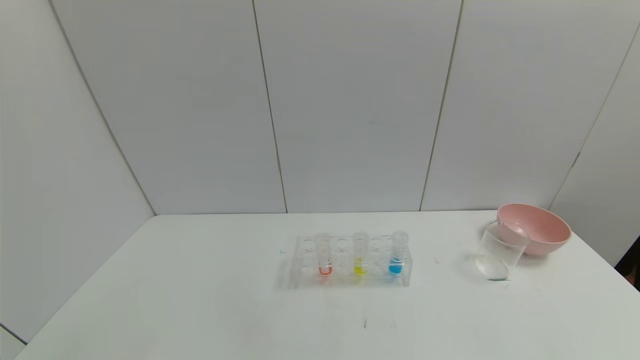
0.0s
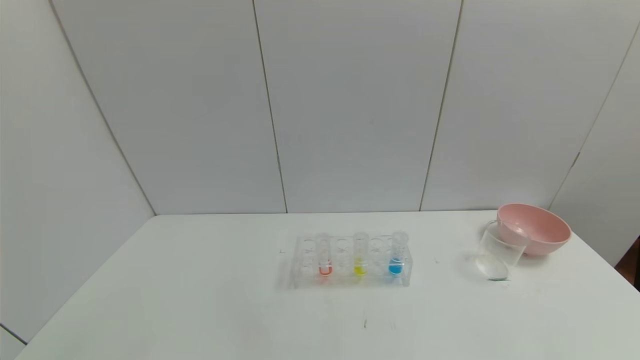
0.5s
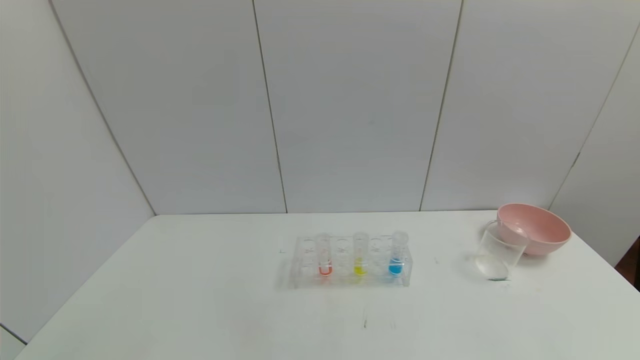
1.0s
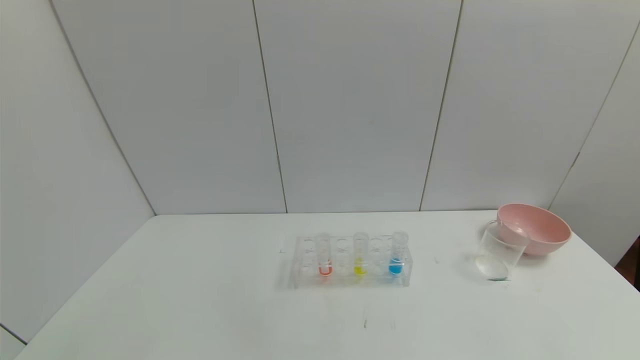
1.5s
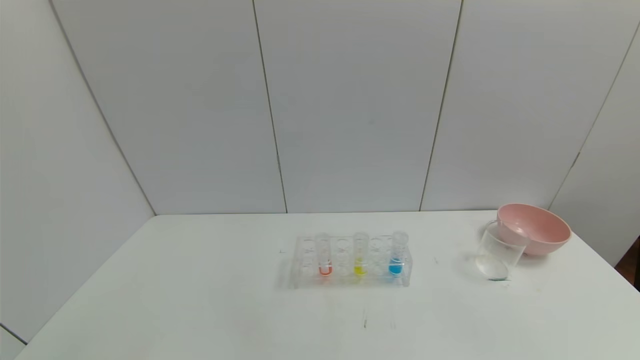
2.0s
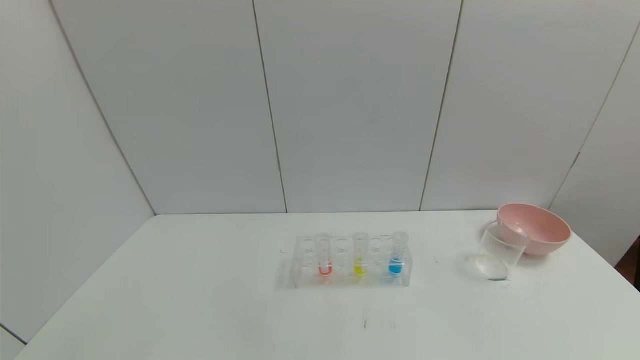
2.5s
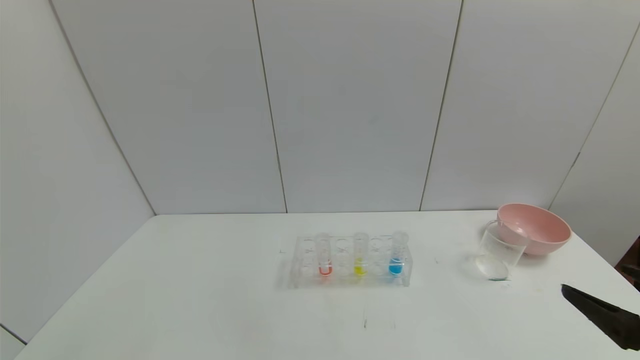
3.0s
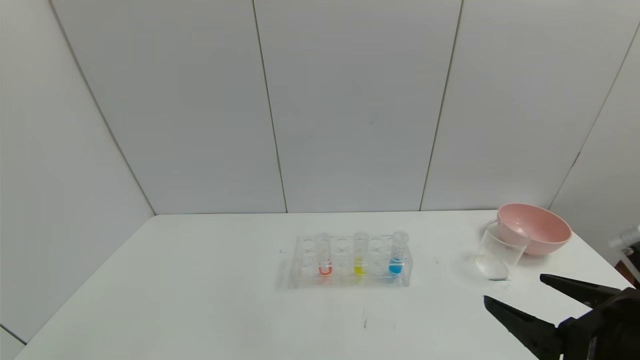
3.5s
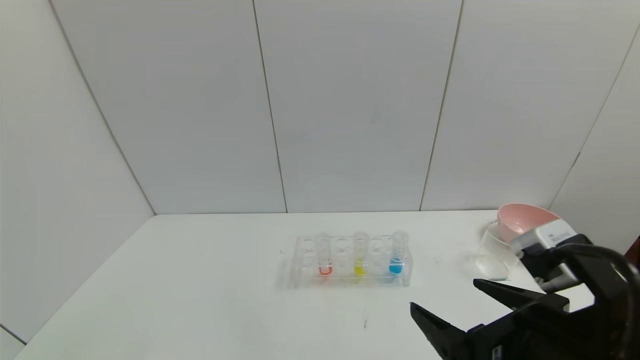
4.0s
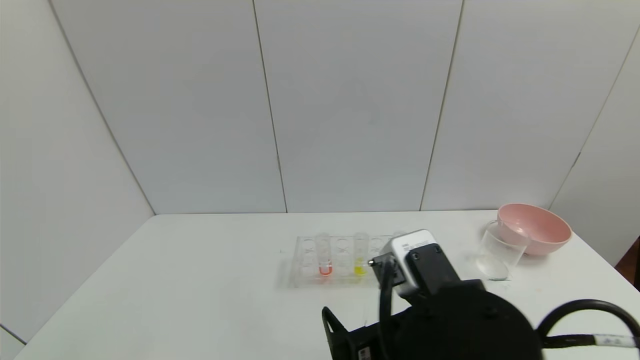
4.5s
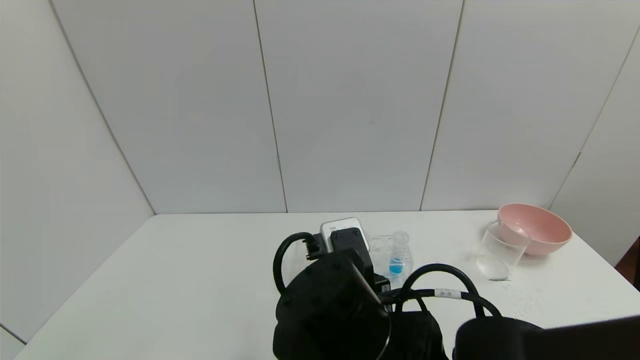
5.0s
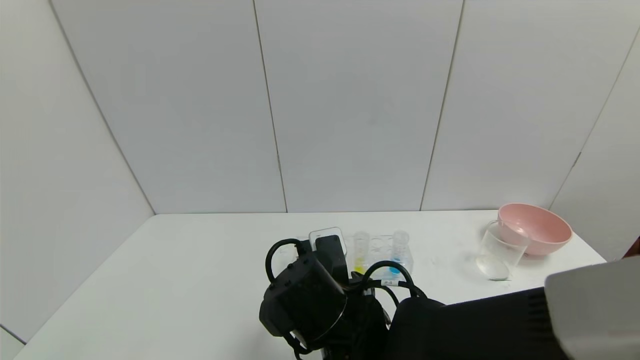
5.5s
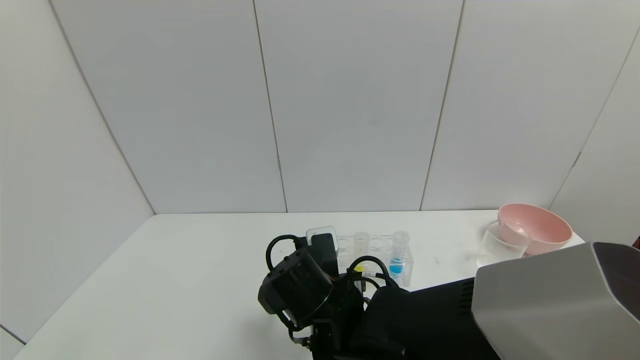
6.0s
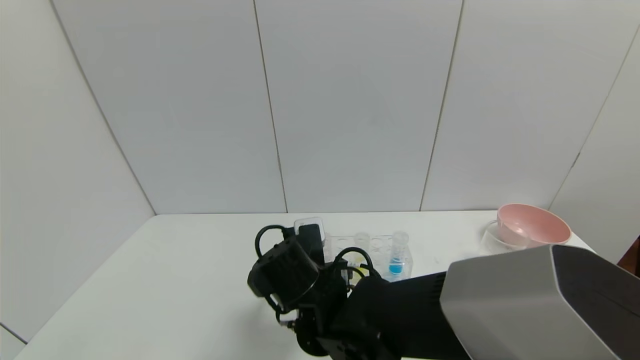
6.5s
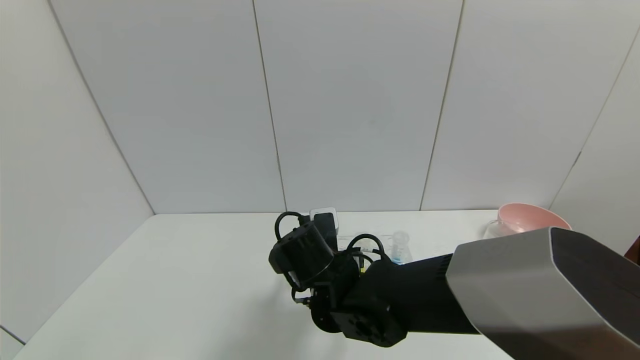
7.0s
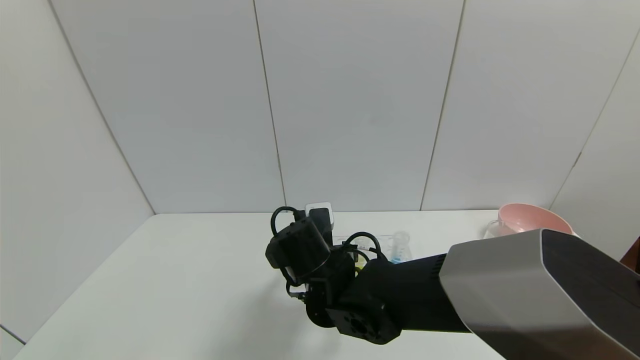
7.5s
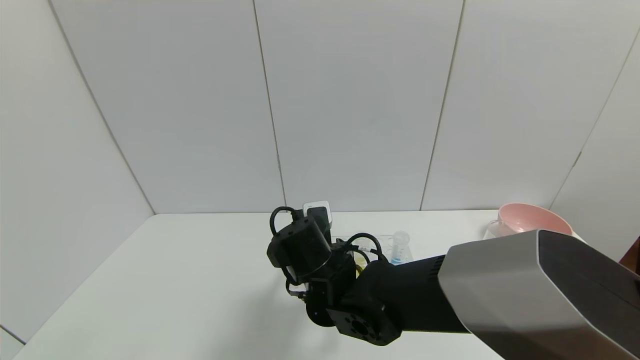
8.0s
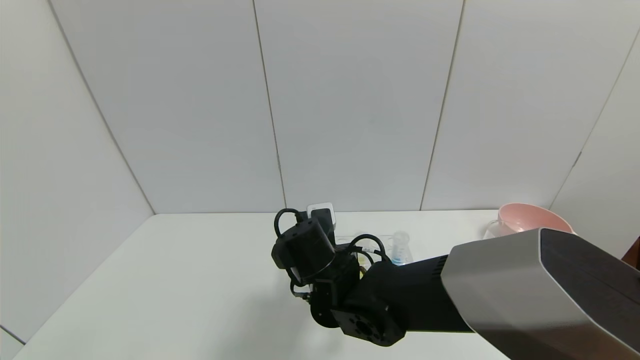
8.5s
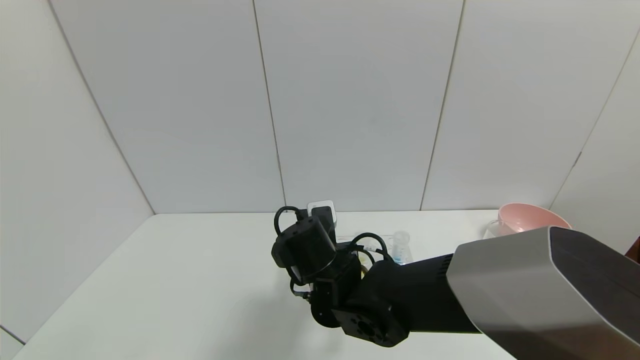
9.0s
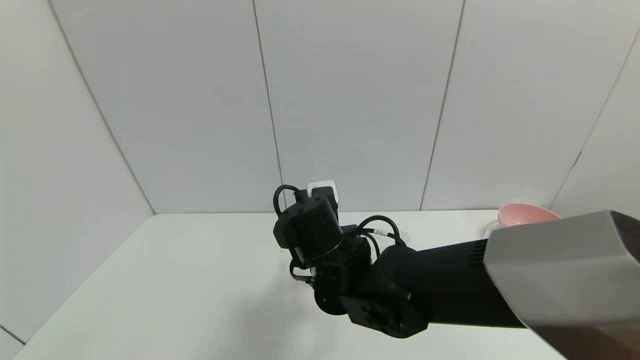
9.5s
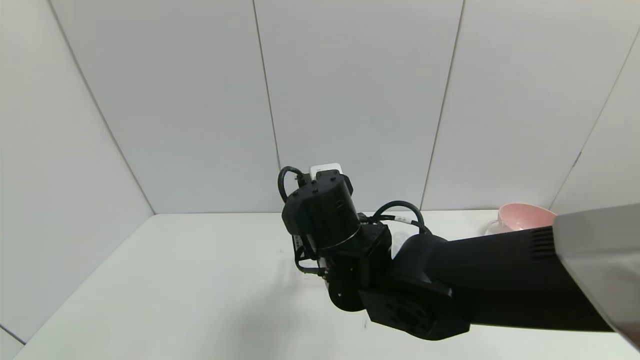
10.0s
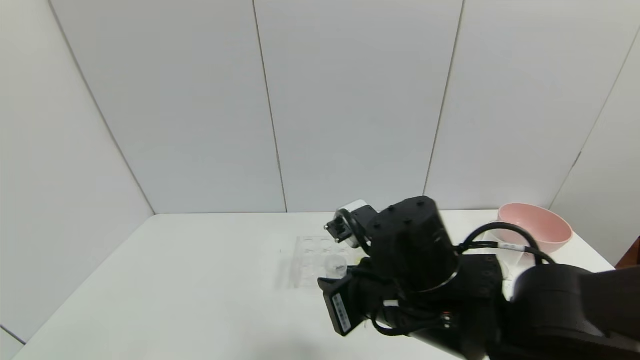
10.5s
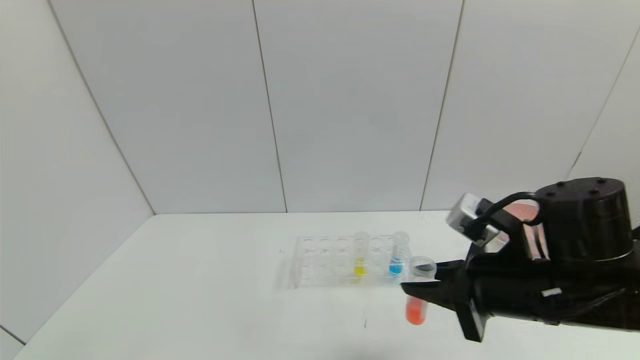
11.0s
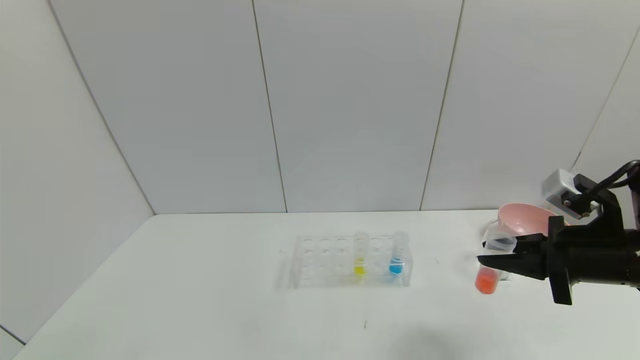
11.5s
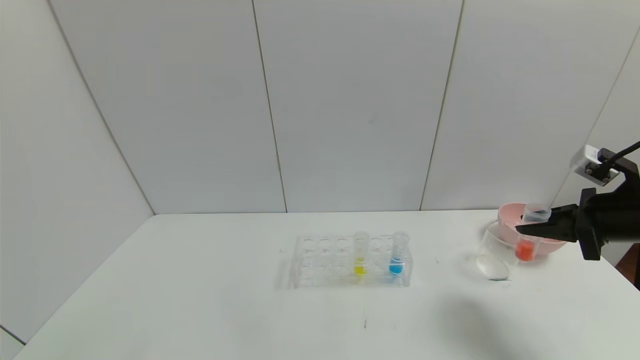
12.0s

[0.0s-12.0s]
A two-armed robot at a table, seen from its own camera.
Task of the whole recording: pick up the test tube with yellow pigment and the test tube with red pigment by grippers and pour them into the beaker.
Step, 0.0s to 8.5s: Grasp the red reagent with the right gripper.
2.0s to 4.0s: The right gripper travels to the left and forward by approximately 25 cm.
4.0s to 6.0s: The right gripper heads to the left, forward and downward, covering roughly 25 cm.
6.0s to 8.0s: There are only small adjustments of the grippers.
8.0s to 10.0s: The right gripper travels upward by some 5 cm, and closes.
10.0s to 12.0s: The right gripper moves to the right, some 40 cm.

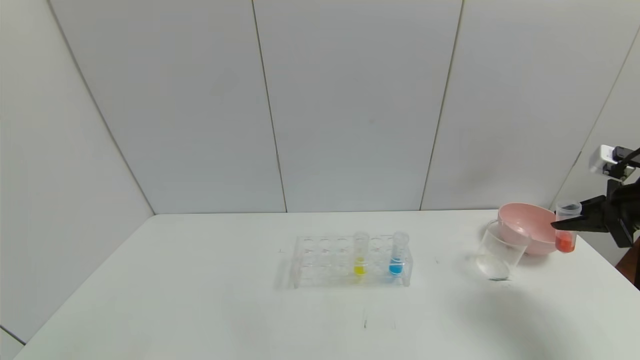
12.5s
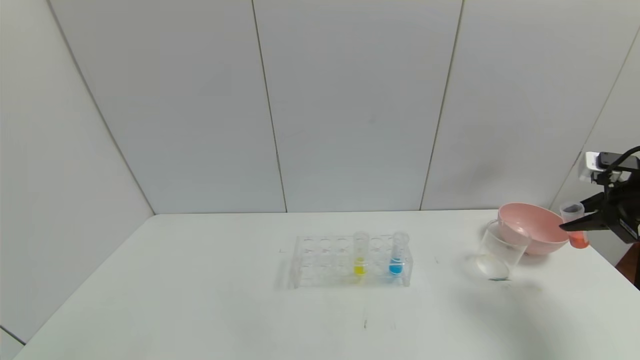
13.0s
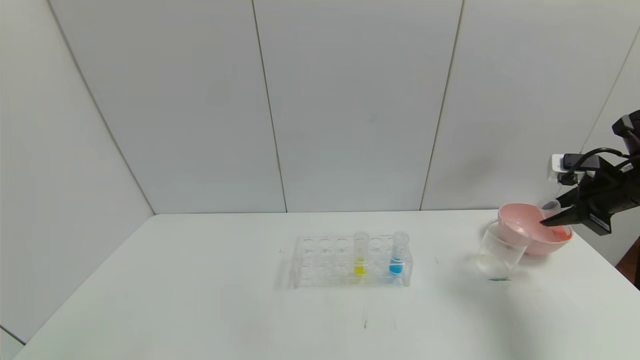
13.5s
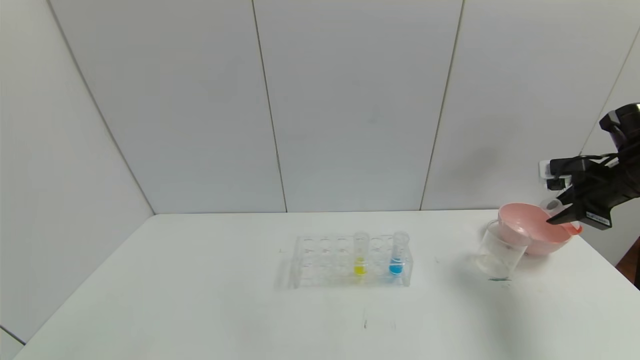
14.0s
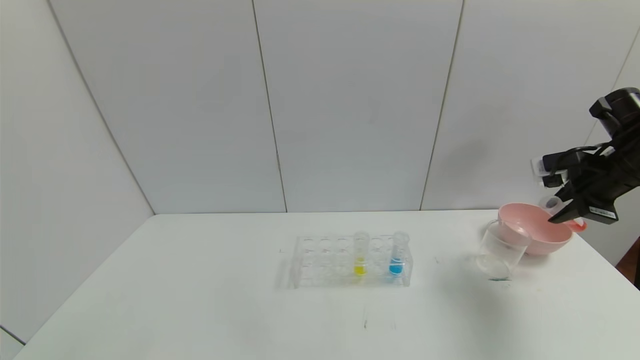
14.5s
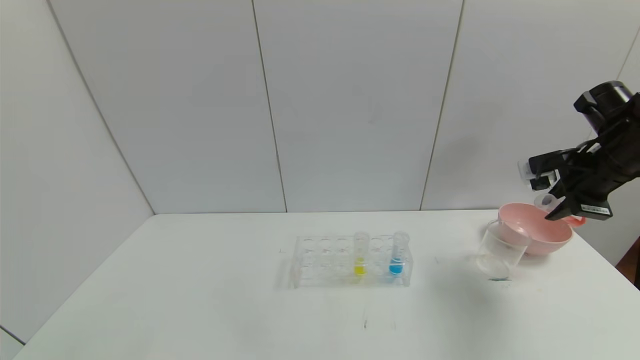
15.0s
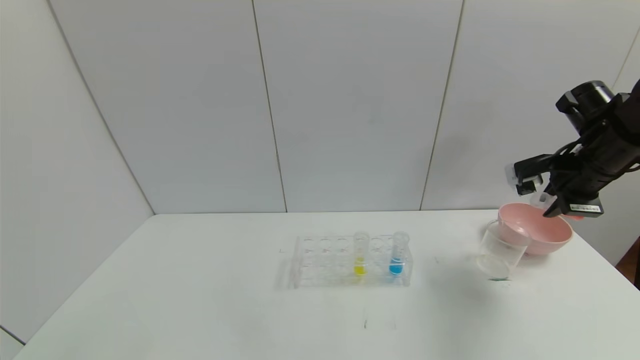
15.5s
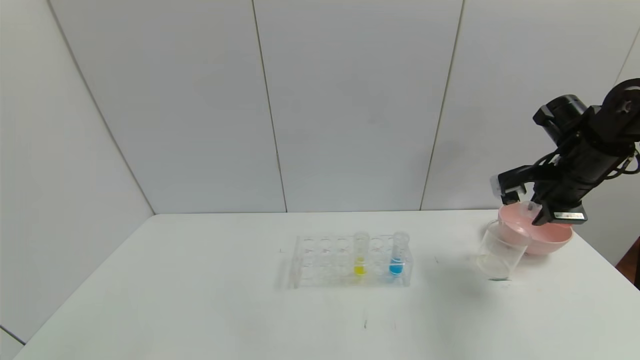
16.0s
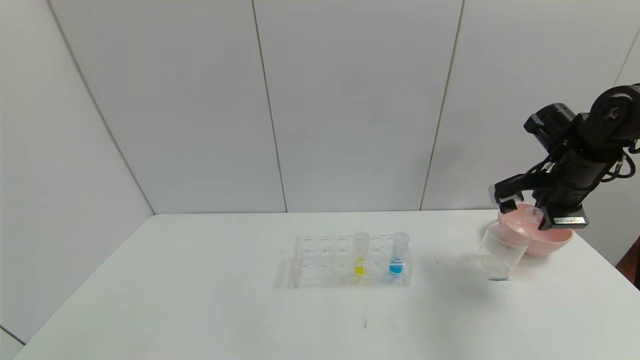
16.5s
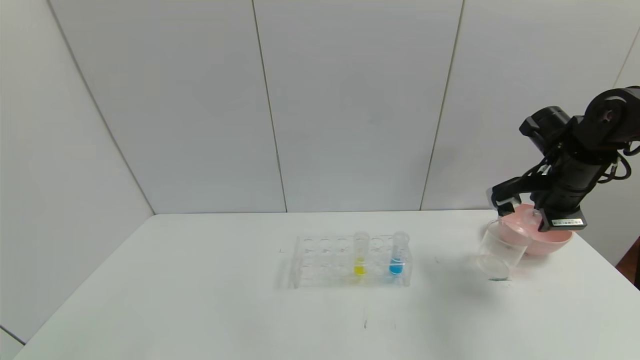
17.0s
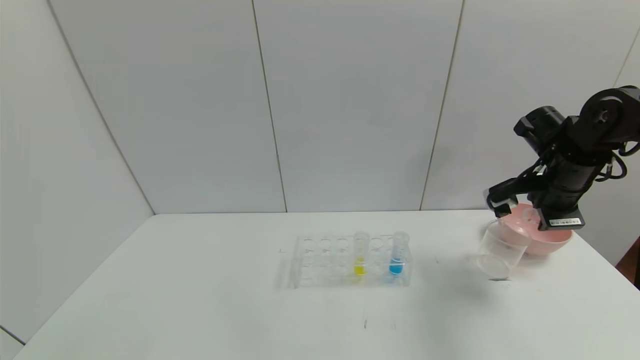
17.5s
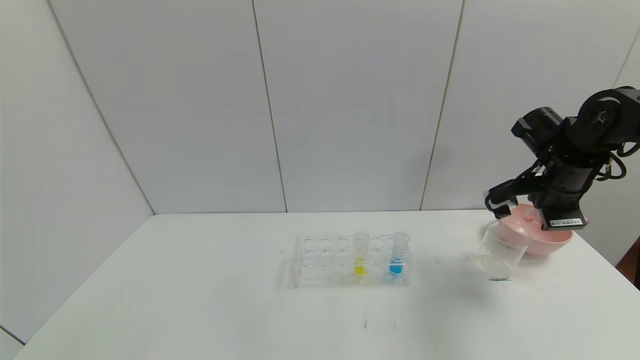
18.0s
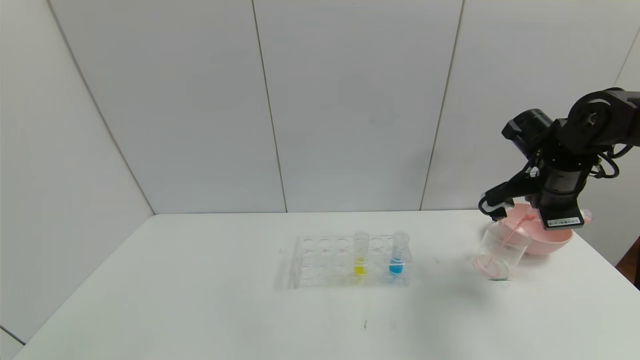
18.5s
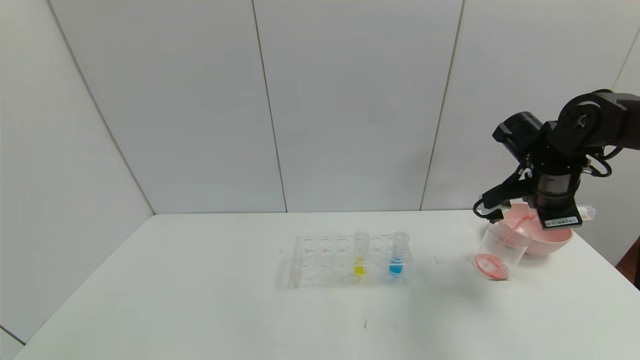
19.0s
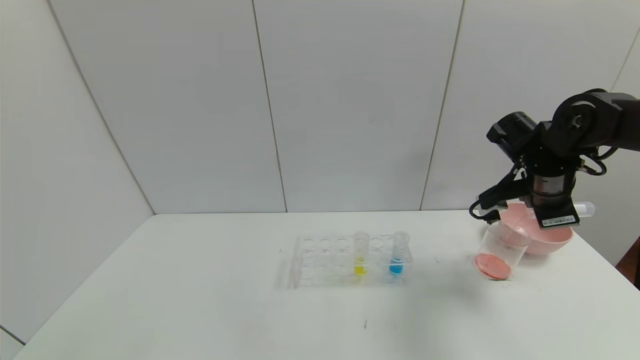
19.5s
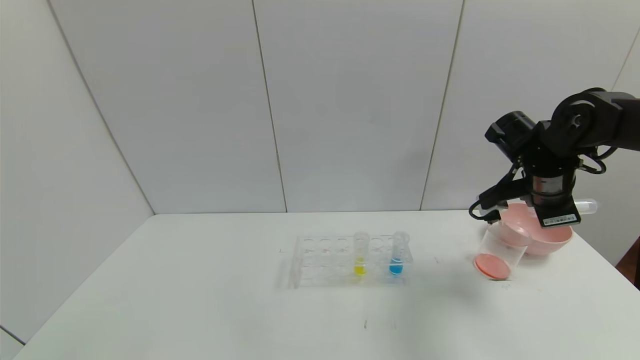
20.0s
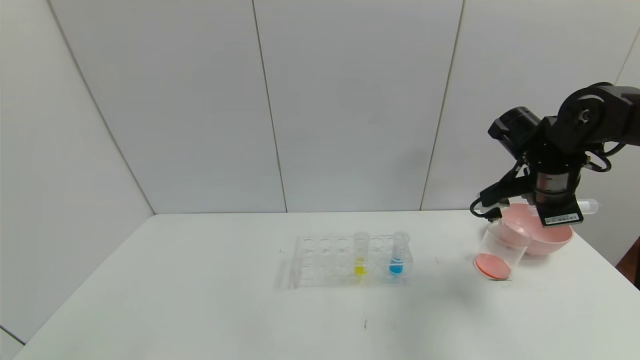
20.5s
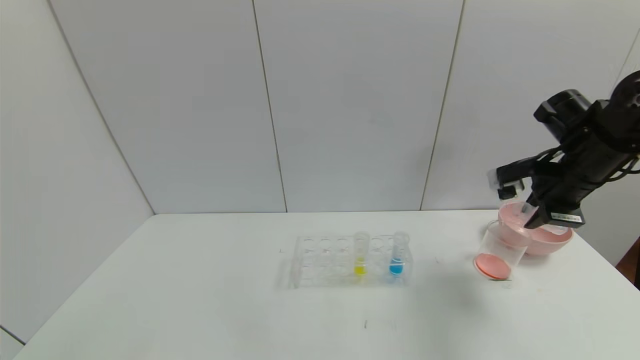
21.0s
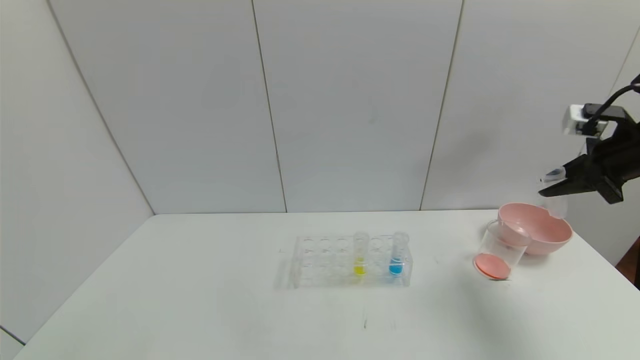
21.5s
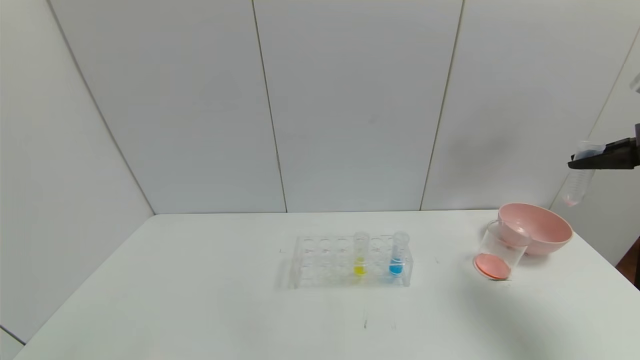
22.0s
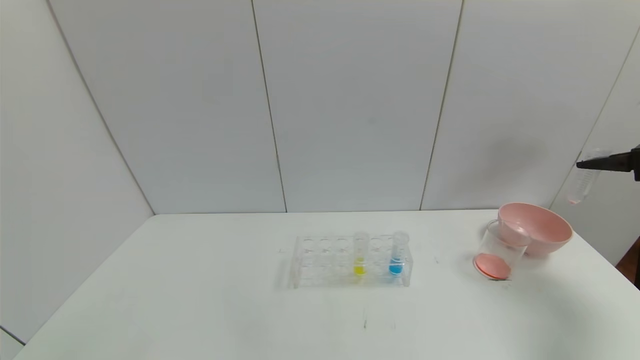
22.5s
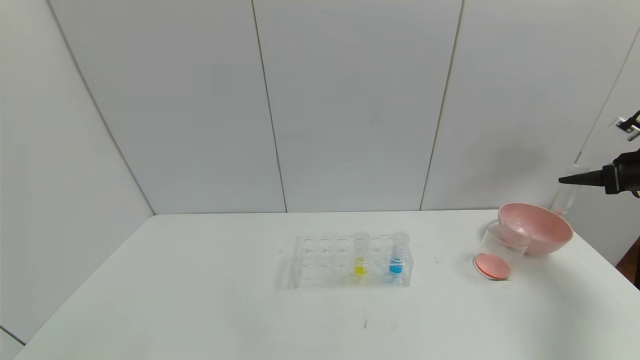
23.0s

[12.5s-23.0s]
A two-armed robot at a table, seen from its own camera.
Task of the whole recording: pick up the test tube with yellow pigment and the test tube with red pigment by grippers and pour them into the beaker.
Step, 12.5s to 20.0s: Pour the red reagent into the graduated cylinder with the right gripper.
12.5s to 14.5s: The right gripper heads forward, covering roughly 5 cm.
14.5s to 16.5s: The right gripper moves to the left, approximately 5 cm.
16.5s to 19.0s: The grippers stay close to where they were, moving slightly.
21.0s to 23.0s: The right gripper goes approximately 20 cm to the right.
